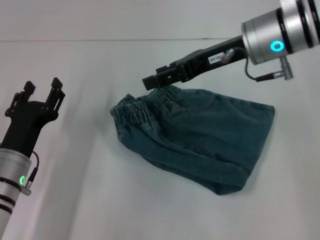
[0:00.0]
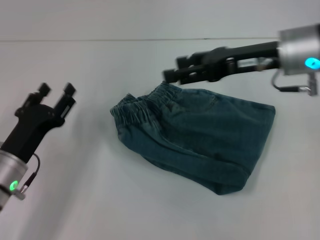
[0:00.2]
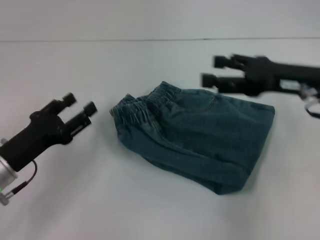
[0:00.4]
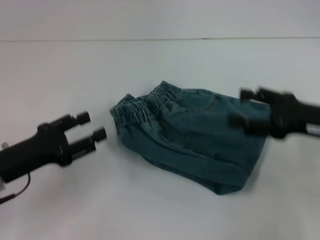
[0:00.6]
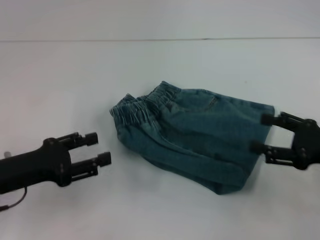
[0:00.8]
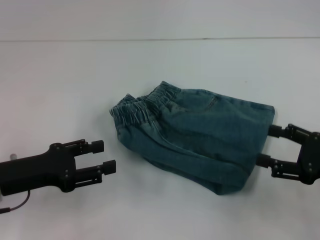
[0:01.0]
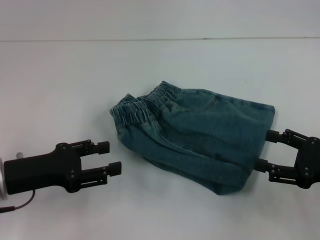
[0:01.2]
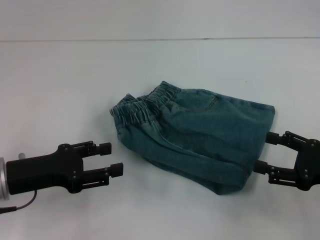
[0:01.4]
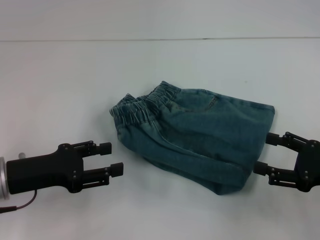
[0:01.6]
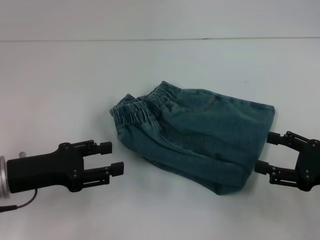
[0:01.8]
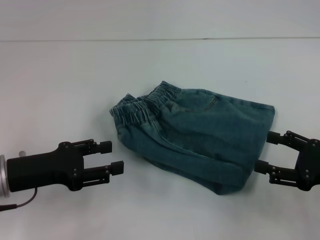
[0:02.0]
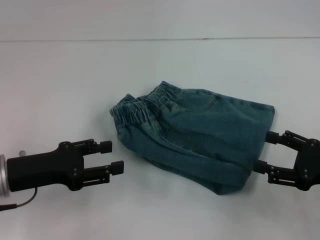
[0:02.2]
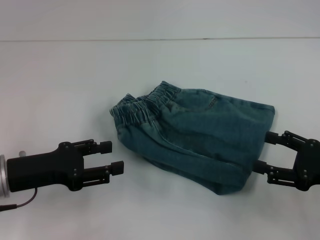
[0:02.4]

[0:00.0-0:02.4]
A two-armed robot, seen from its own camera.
0:00.0 to 0:01.2: The right gripper is displaced to the right, backward and downward by some 25 cm, and opens up. The left gripper is displaced upward by approximately 5 cm.
0:01.2 to 0:02.4: The two grippers keep their place.
